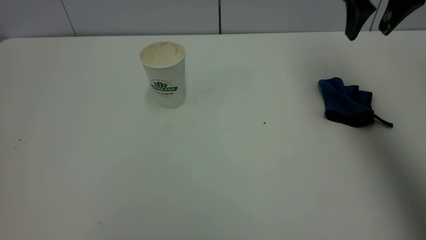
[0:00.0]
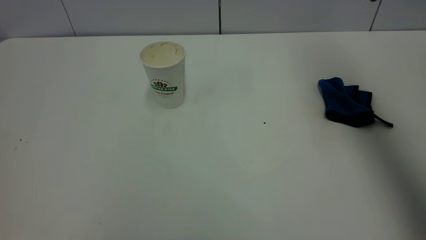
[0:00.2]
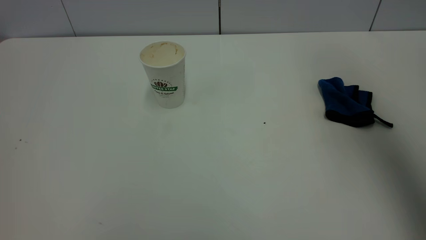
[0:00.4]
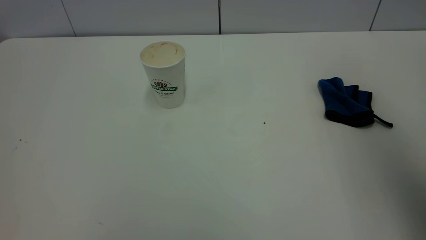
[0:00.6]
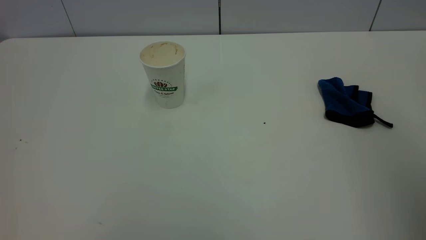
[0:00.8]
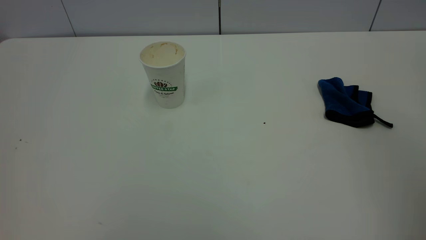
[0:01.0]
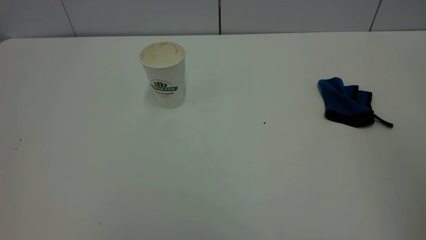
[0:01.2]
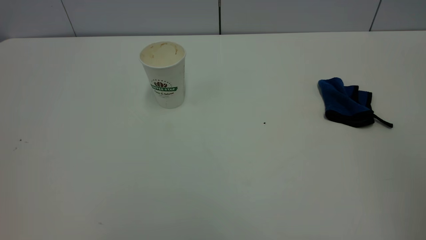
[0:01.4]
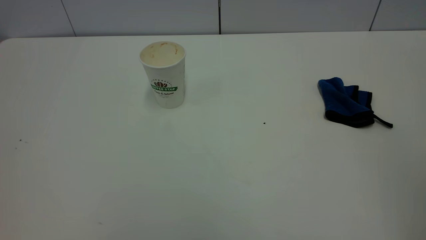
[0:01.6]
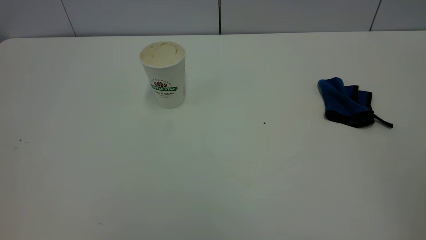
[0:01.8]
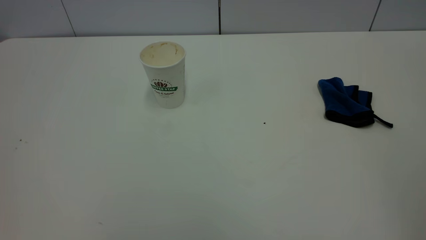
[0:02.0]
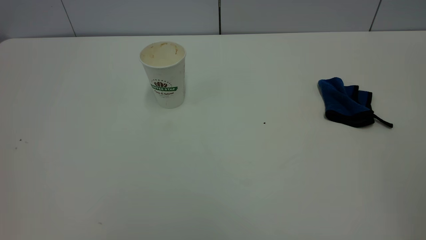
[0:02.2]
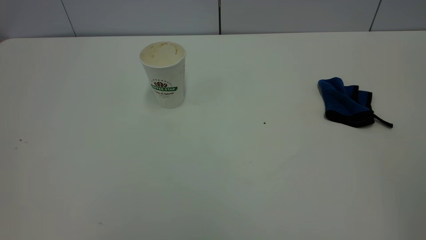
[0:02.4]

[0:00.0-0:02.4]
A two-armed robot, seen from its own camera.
Task of the whole recording: the left gripper pick up the fallen cup and place it upright, the right gripper grasp the blue rag and wipe the tea stain on the table, the right gripper put the blue rag back in its original position.
0:00.0 to 0:01.2: The right gripper travels backward by approximately 35 cm.
